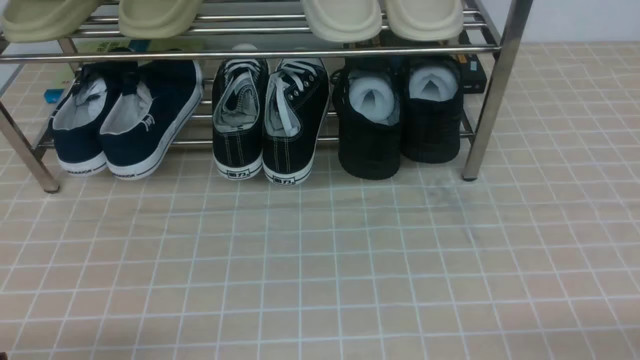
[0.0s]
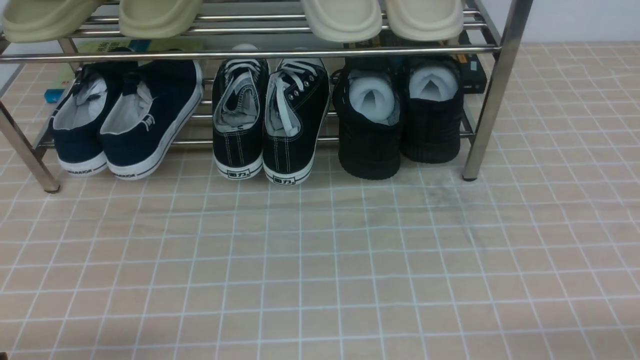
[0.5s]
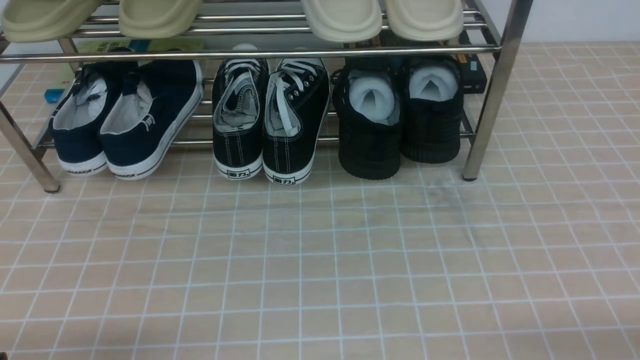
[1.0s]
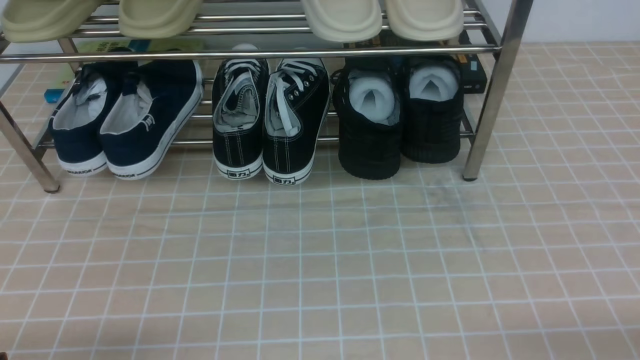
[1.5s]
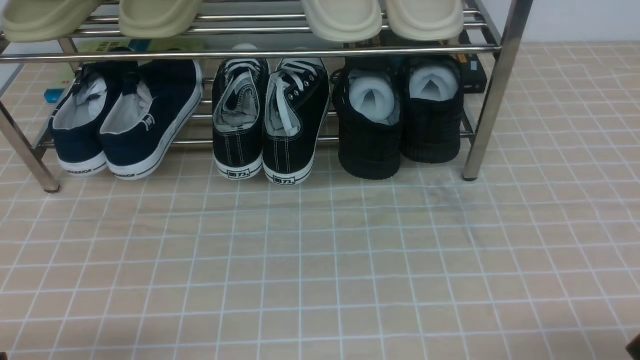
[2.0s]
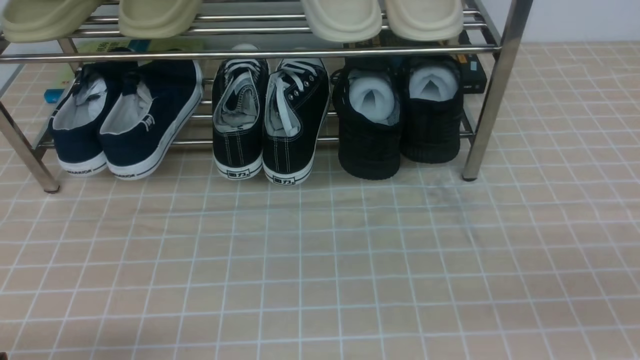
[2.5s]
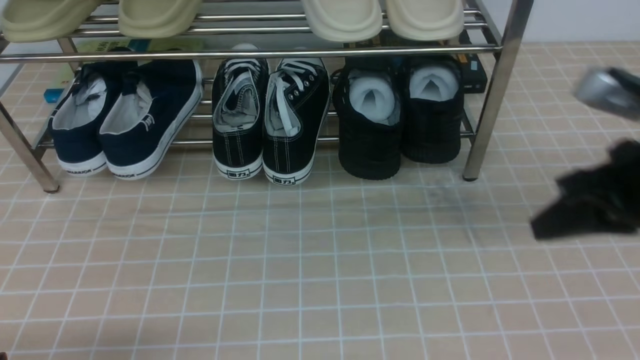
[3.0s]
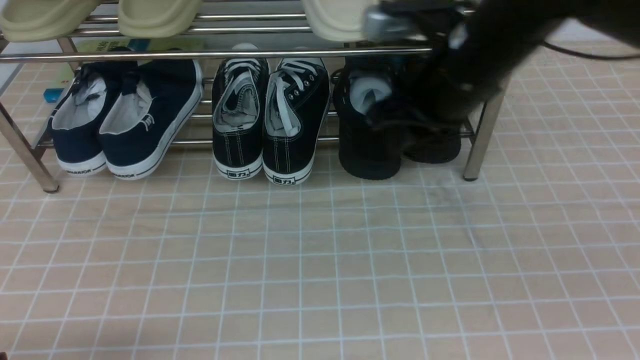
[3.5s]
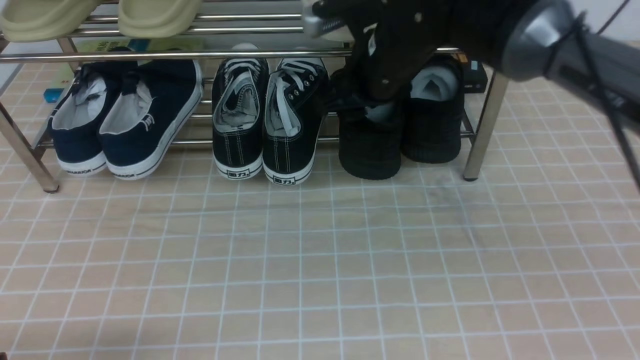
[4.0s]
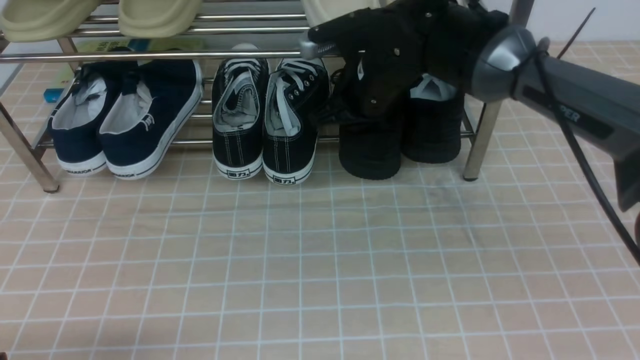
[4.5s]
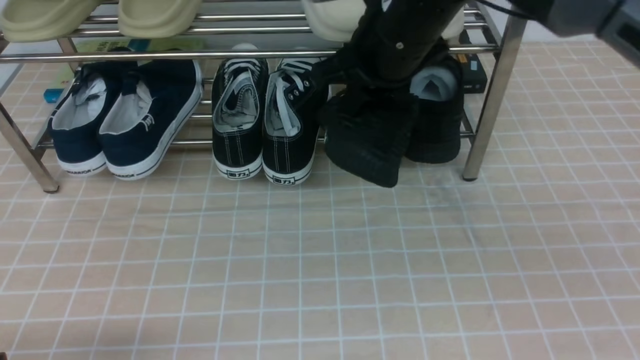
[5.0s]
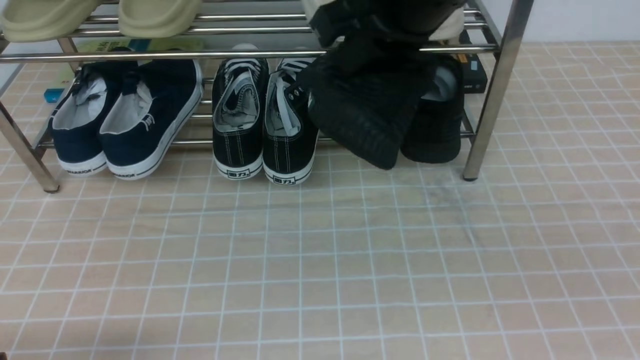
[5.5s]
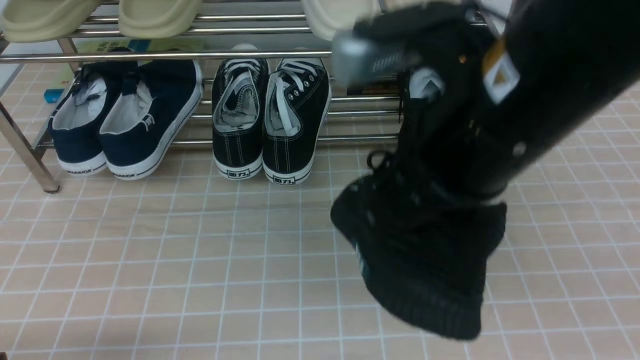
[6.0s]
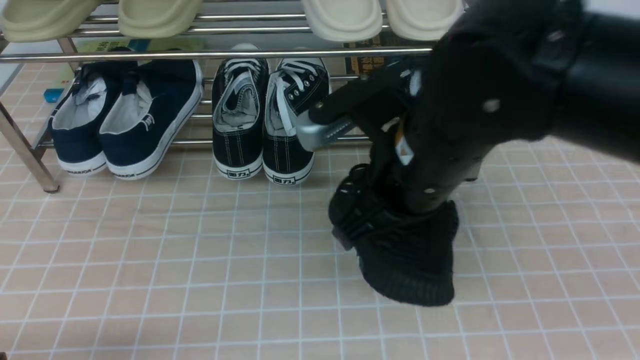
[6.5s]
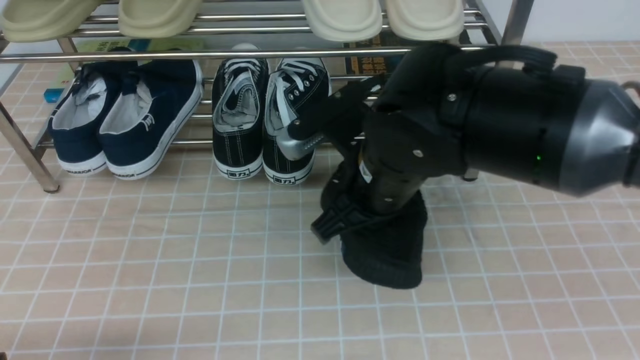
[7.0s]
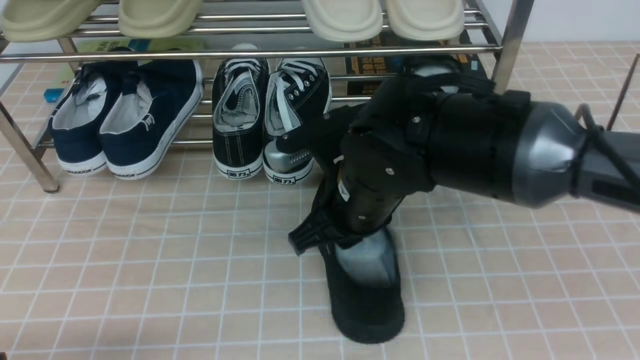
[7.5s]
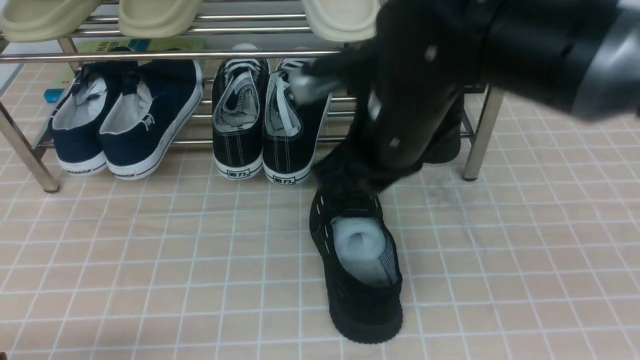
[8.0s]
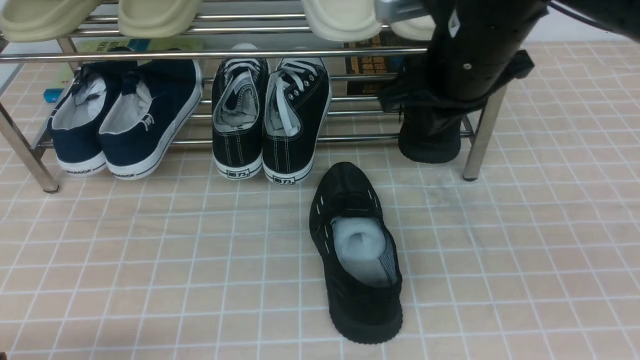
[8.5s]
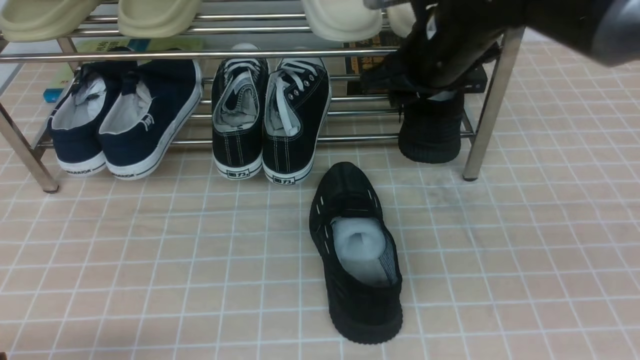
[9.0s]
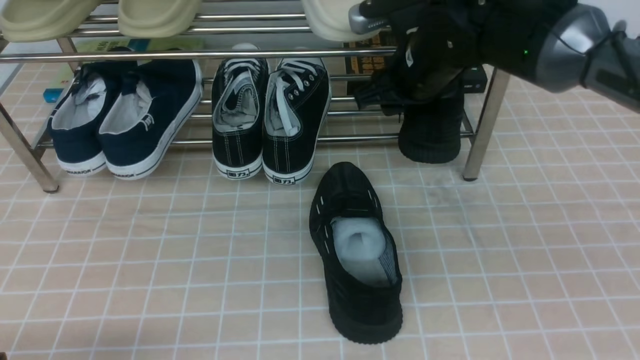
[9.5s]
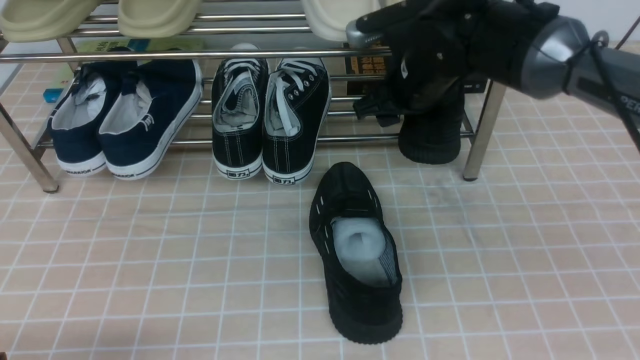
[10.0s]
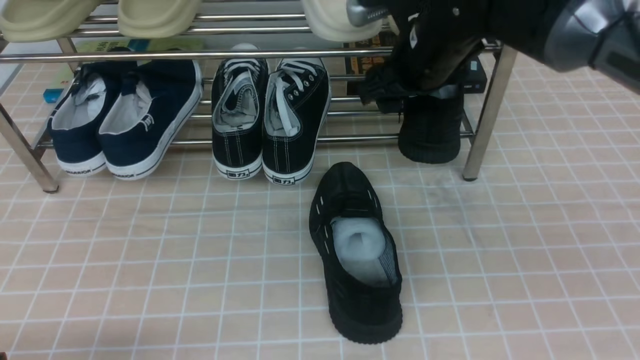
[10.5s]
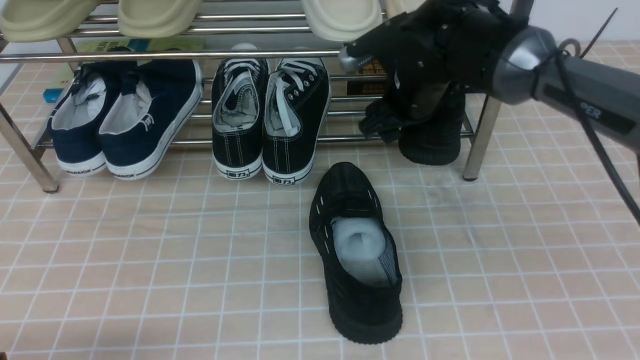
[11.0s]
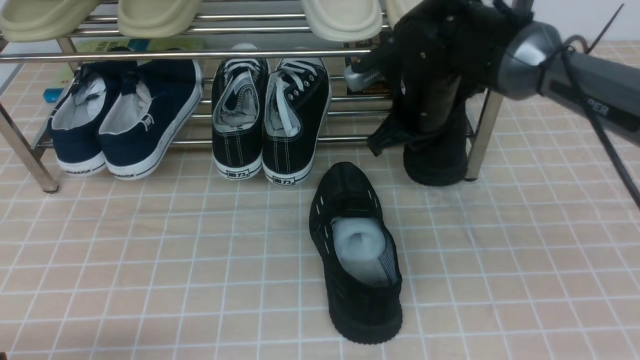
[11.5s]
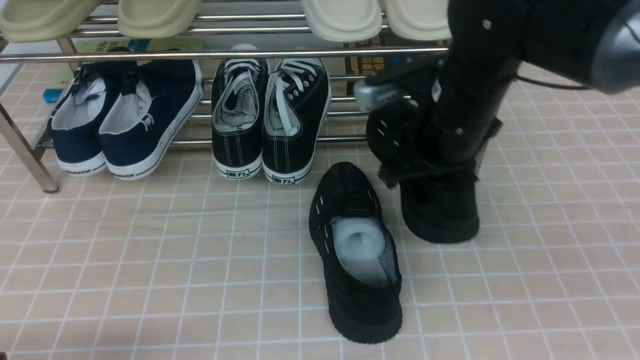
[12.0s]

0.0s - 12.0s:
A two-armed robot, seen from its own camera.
Step, 0.0s - 4.0s: use the right arm to clamp a shoe on the right side of the shoe rack.
Step, 5.0s - 7.5s: use the right arm to take out the clamped shoe from the shoe rack and put it down.
Step, 8.0s - 11.0s: use the right arm to clamp a shoe on the right side of the shoe rack.
2.0s - 4.0s: The right gripper moves forward and to the left, some 40 cm, and closes, then opens again.
4.0s - 6.0s: The right gripper moves backward and upward, roughly 20 cm, and closes its fingers.
6.0s - 8.0s: The right gripper goes roughly 10 cm downward and forward.
8.0s - 10.0s: The right gripper goes some 15 cm forward and to the right, and opens up.
10.0s - 12.0s: The right gripper shifts roughly 5 cm backward, and closes.

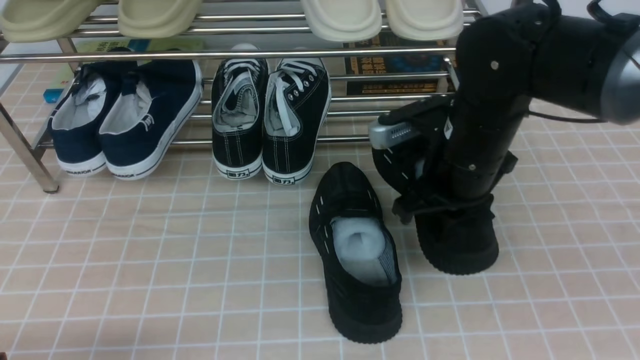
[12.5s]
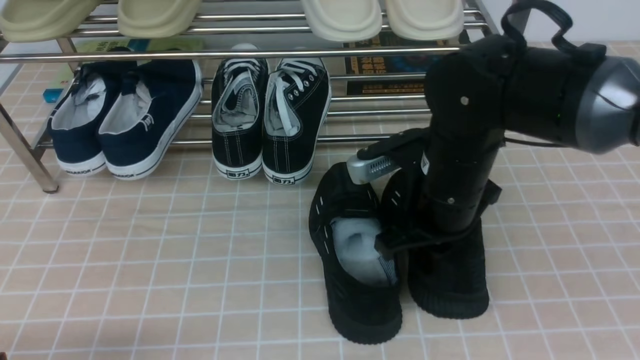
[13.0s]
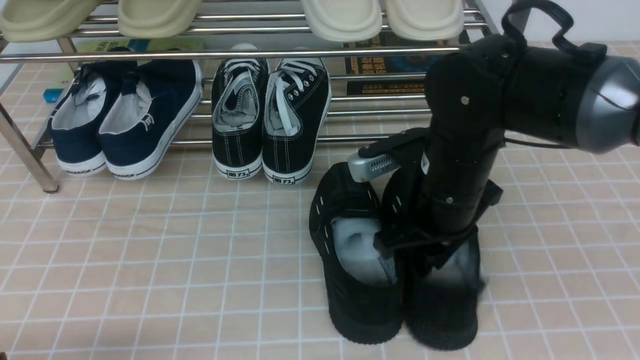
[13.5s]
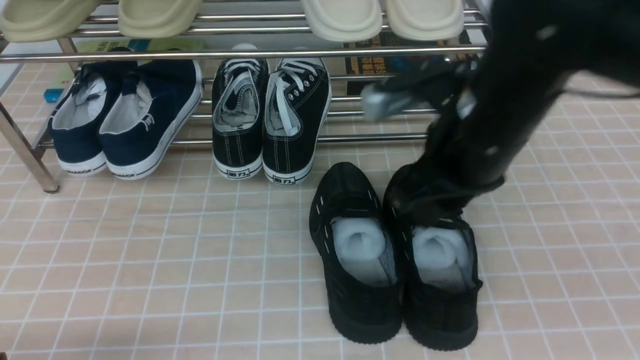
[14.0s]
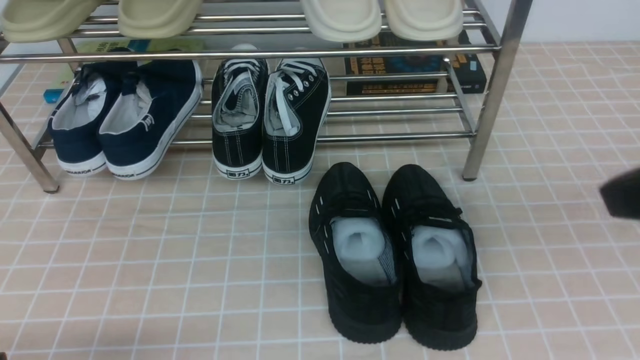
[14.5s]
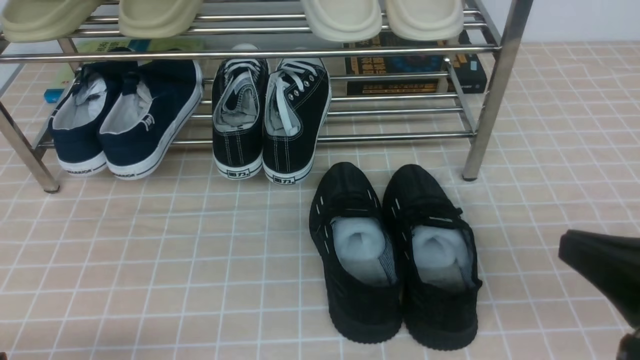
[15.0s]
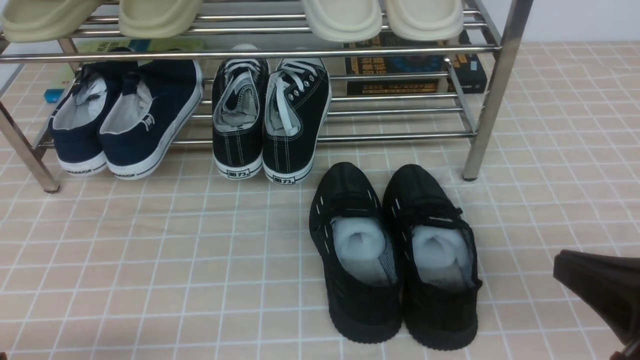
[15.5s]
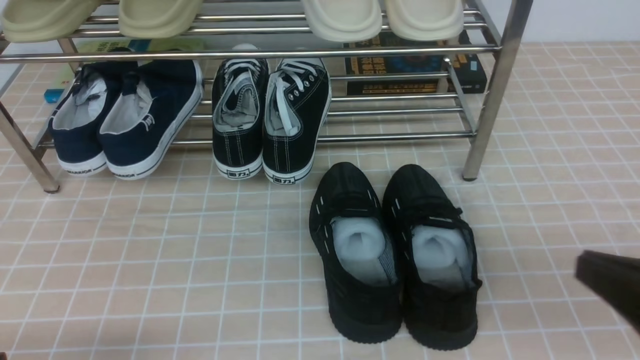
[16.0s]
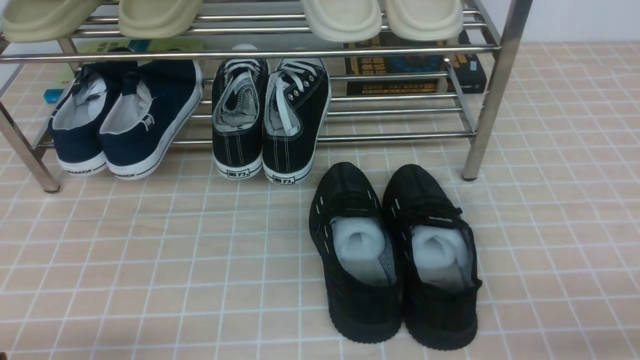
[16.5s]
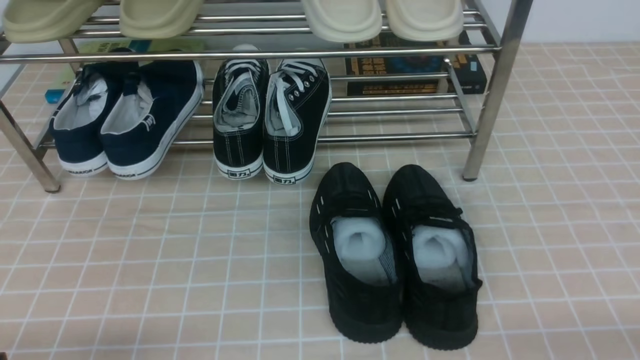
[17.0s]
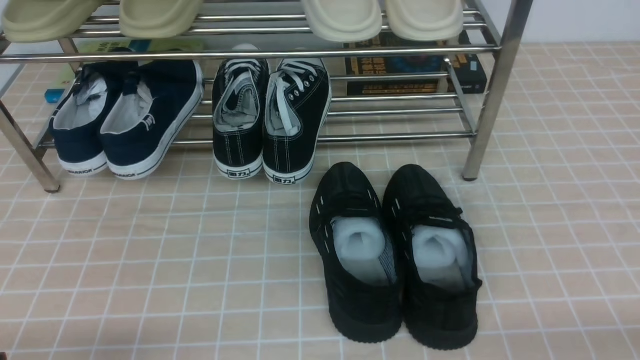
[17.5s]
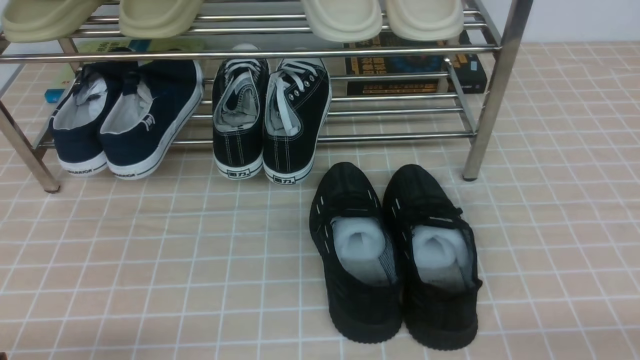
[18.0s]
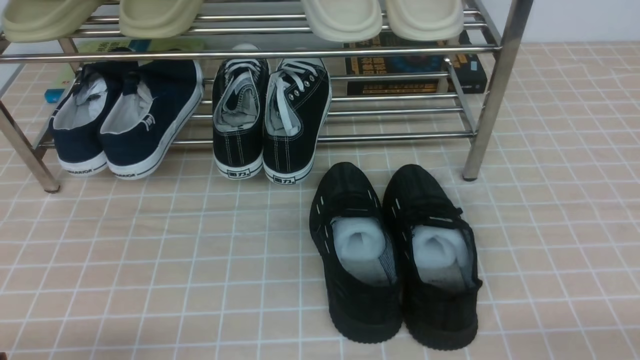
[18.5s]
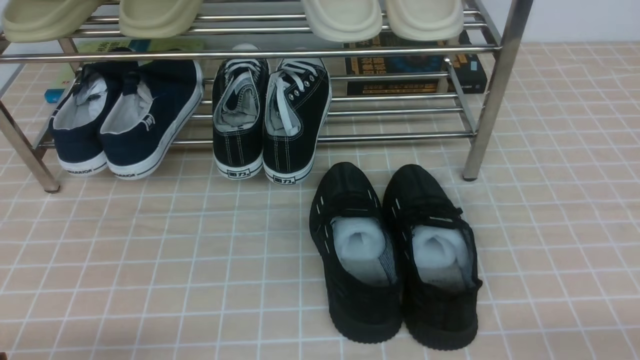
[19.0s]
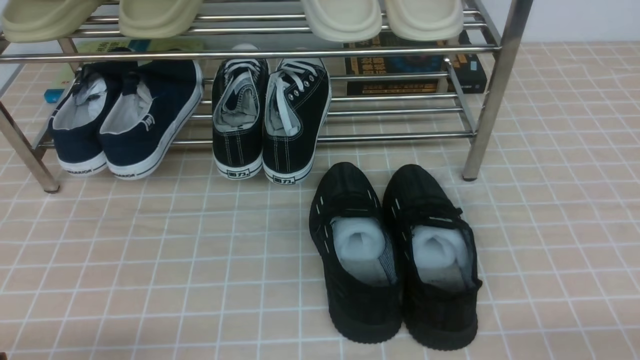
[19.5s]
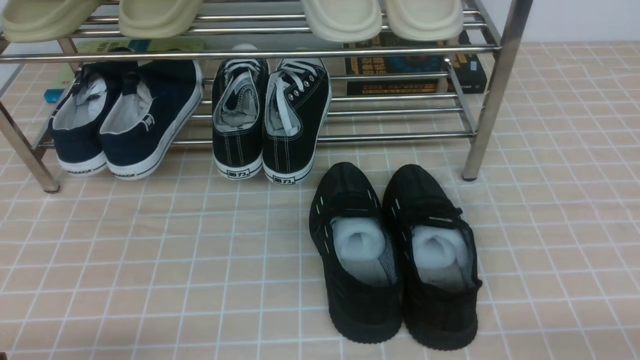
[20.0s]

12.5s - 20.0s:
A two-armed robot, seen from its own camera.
Step, 12.5s - 14.0s: use the right arm to take out the clamped shoe from the shoe rack and put it down.
12.5s - 14.5s: The right gripper travels backward, upward and to the right by approximately 25 cm, and opens and closes again.
14.5s - 16.5s: The right gripper shifts approximately 20 cm downward, to the right and backward.
18.0s - 20.0s: Neither gripper changes place.
